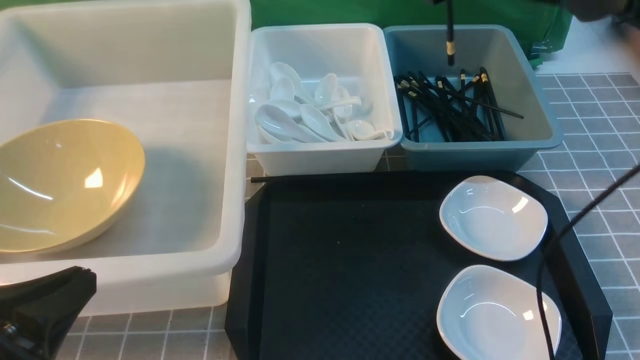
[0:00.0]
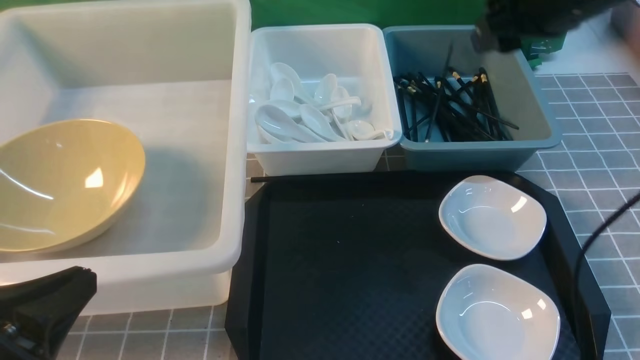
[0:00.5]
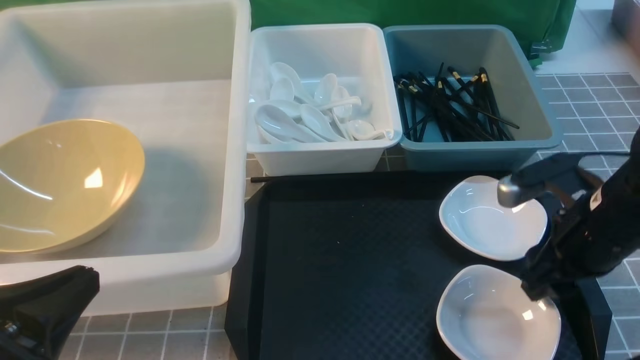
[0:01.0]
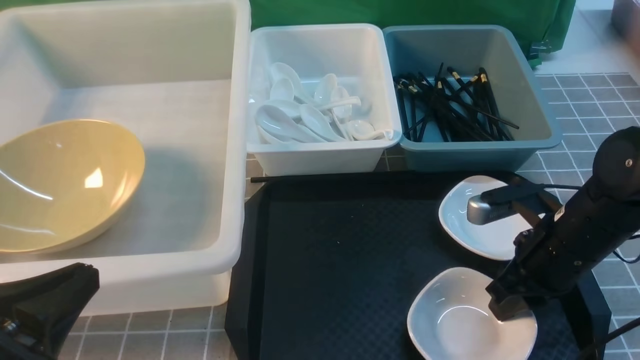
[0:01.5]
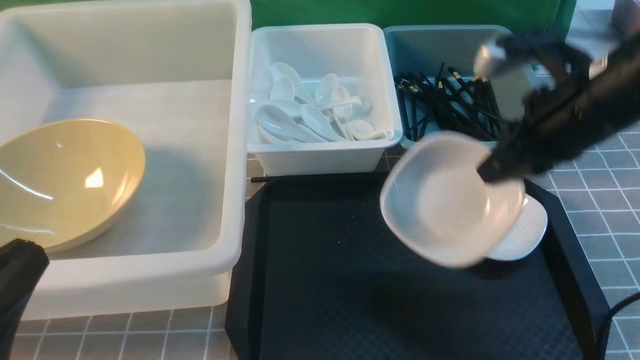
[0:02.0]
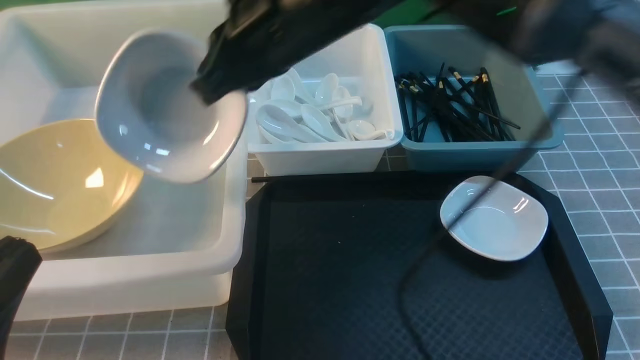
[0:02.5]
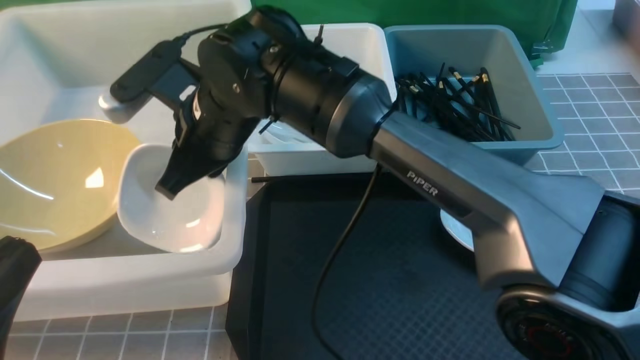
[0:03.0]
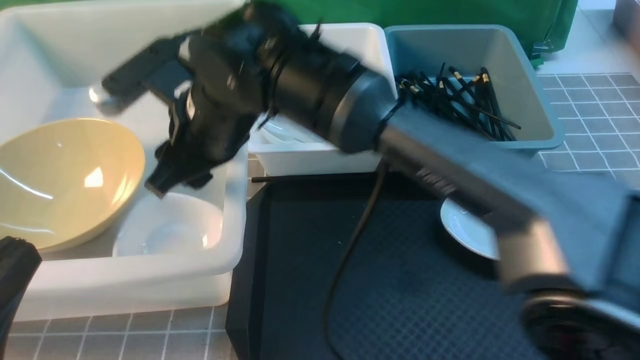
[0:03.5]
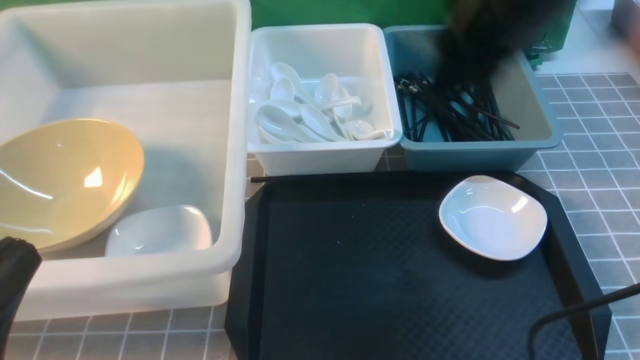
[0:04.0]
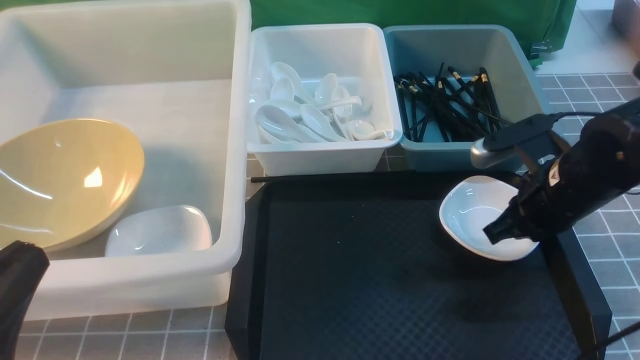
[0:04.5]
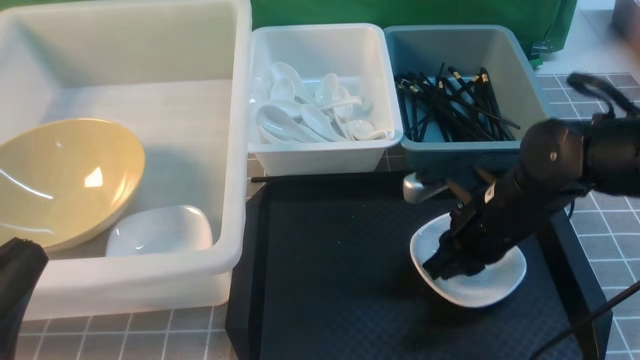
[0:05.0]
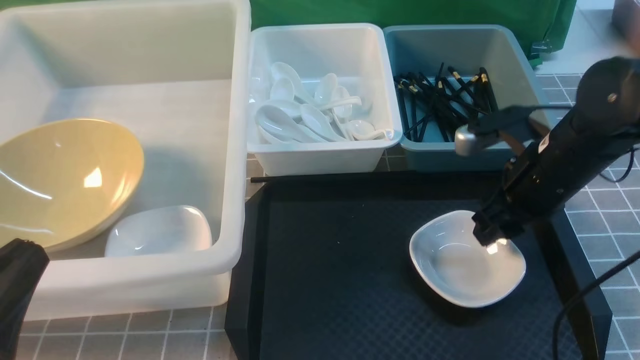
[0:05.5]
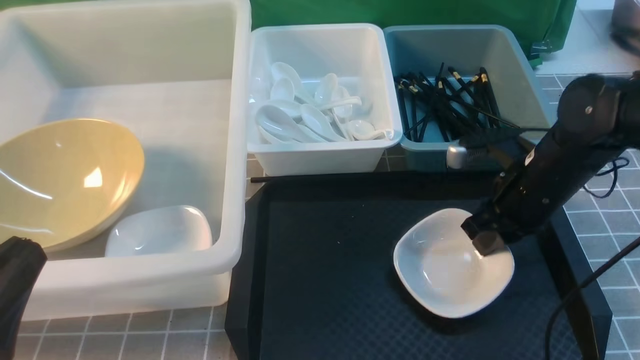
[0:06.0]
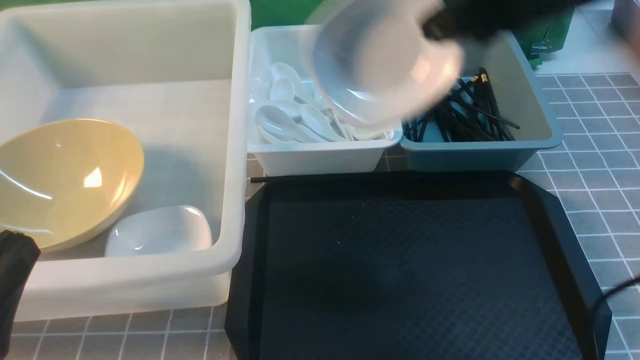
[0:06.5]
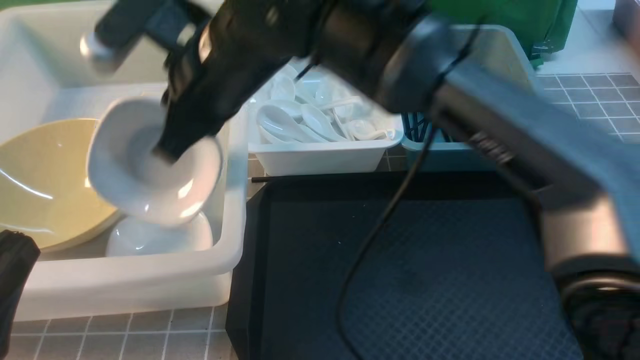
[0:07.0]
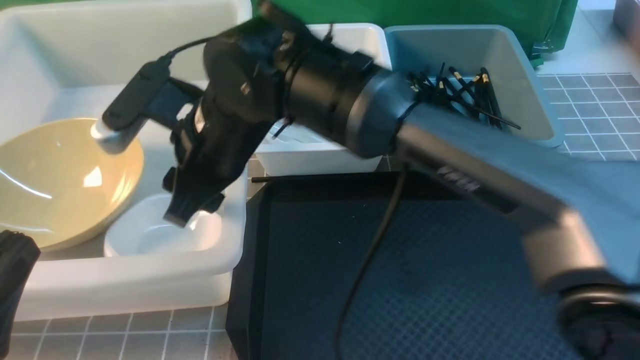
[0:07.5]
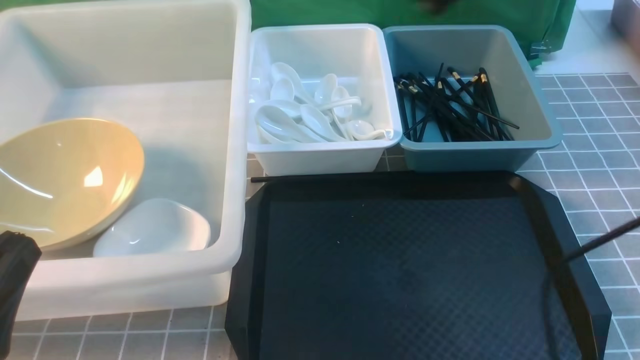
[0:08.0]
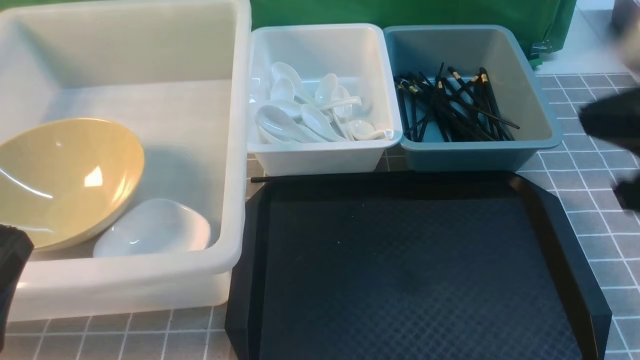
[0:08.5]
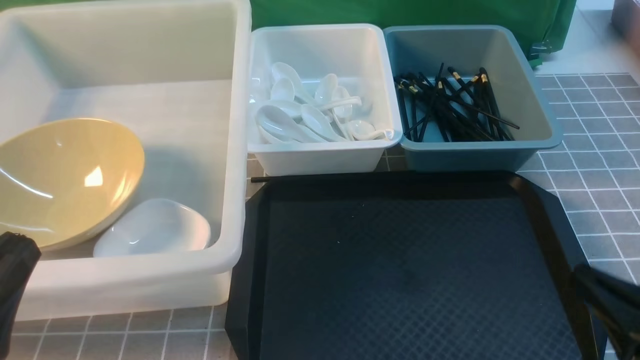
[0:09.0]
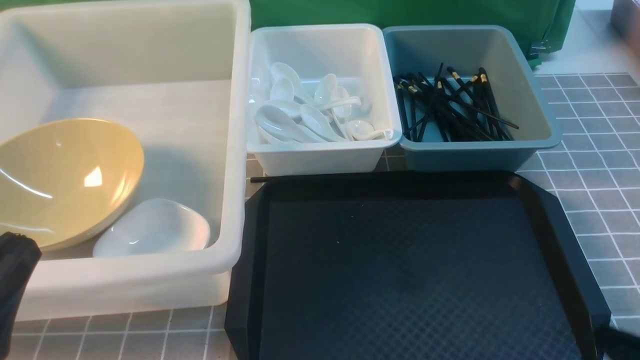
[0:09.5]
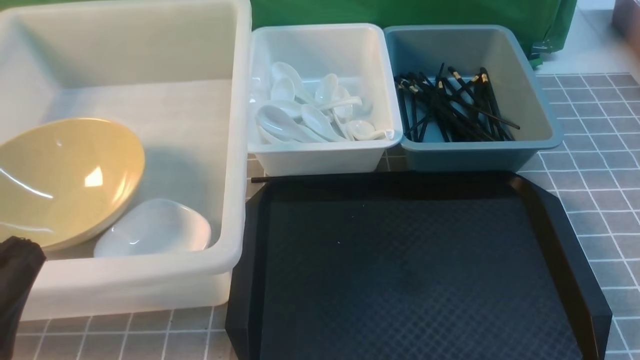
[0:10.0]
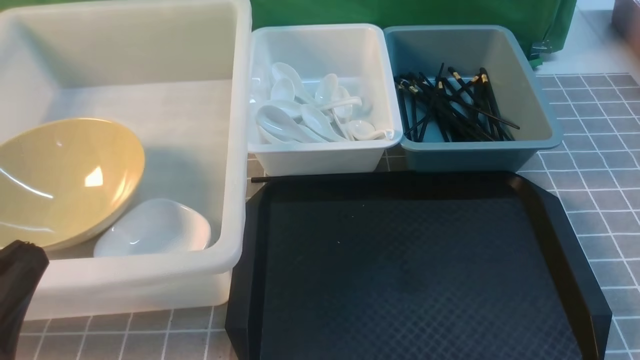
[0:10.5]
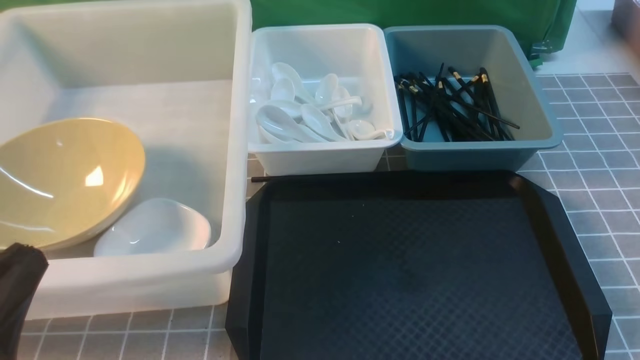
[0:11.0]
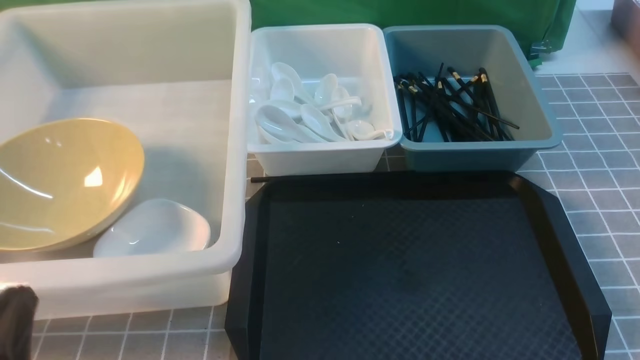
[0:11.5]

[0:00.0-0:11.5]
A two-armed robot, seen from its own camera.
Task of the whole recording: on grey table put chopsticks spoon bowls plates into blue grey white boxes.
Step, 0:00.0 to 0:00.5: use the right arm to put a chopstick into the small storage box on the right.
Step, 0:01.0 to 0:01.5: use the right arm to grab the plate.
Step, 0:02.0 to 0:03.5: use the right arm to put the plate into the large storage box on the left.
Step, 0:04.0 to 0:06.0: use the right arm to grab the plate.
Step, 0:06.5 to 0:07.5: use the right arm to put the plate into the large storage box on the left.
0:00.0 to 0:02.0: The right gripper heads backward, covering roughly 10 cm, travels downward and back again, roughly 15 cm each way, and opens, then closes once more.
0:02.0 to 0:04.0: The right gripper goes to the left and returns, approximately 30 cm each way, and opens up.
0:04.0 to 0:06.0: The right gripper shifts approximately 20 cm downward and to the right, and opens, then closes once more.
0:06.0 to 0:07.5: The right gripper shifts roughly 30 cm to the left and upward, and opens up.
0:07.5 to 0:09.5: The right gripper moves to the right, backward and downward, some 50 cm, and closes its fingers.
0:09.5 to 0:11.5: The left gripper goes about 10 cm downward.

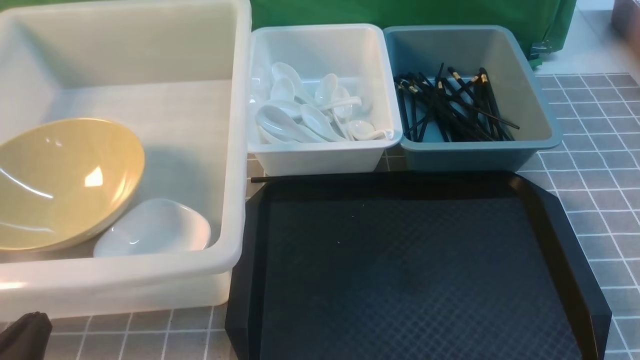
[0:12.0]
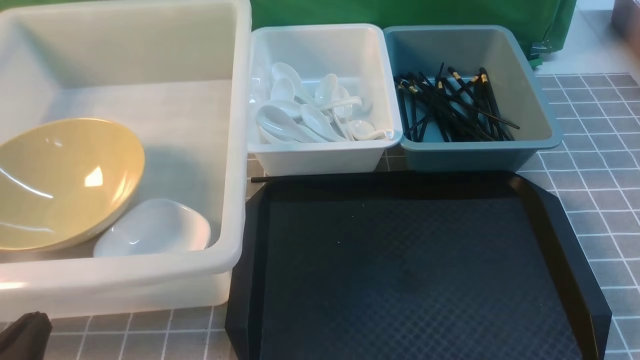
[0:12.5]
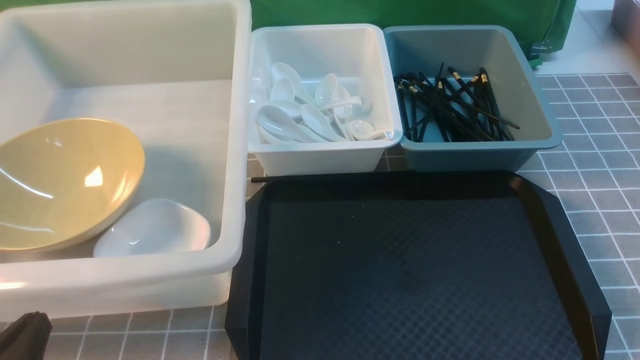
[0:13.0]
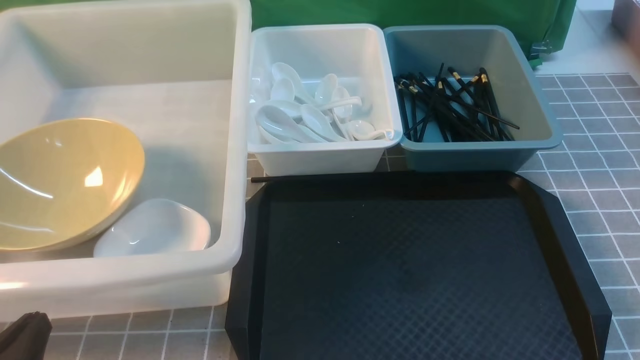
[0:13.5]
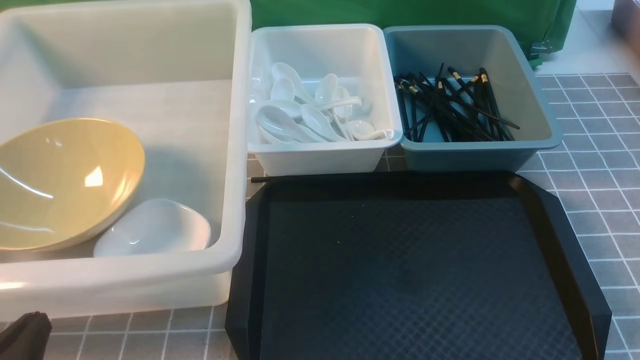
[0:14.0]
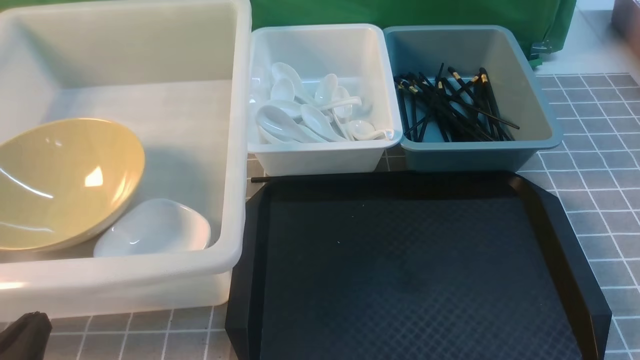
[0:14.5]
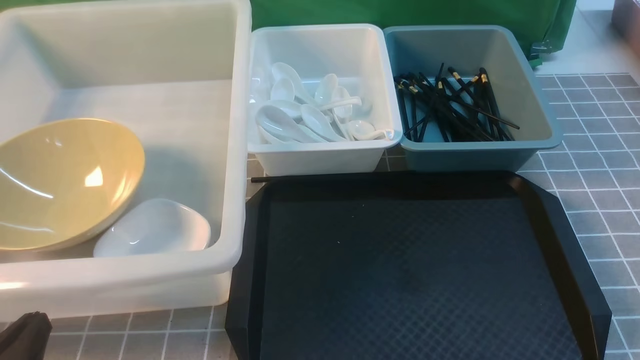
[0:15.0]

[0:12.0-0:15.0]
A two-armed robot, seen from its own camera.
Task of the whole recording: on grey table put chopsticks spoon bowls plates into blue grey white boxes.
0:12.0 to 0:15.0: Both grippers stay put.
